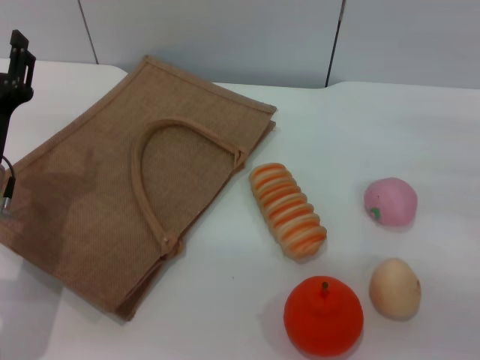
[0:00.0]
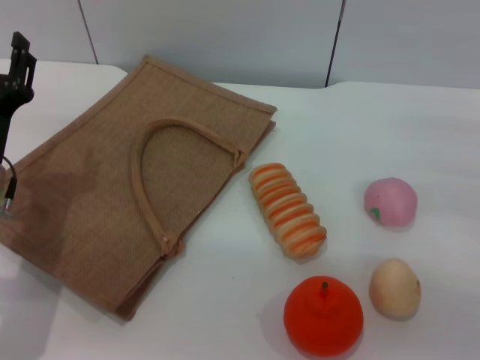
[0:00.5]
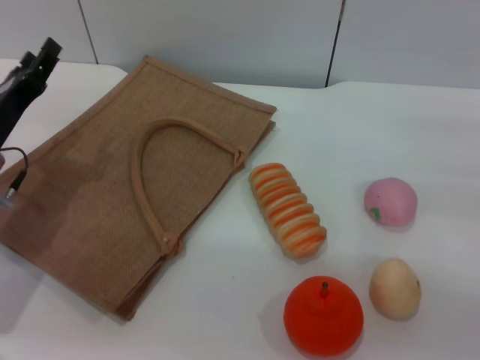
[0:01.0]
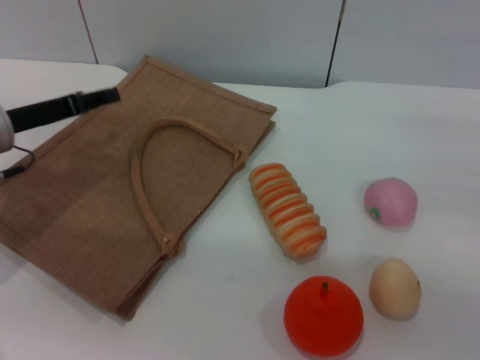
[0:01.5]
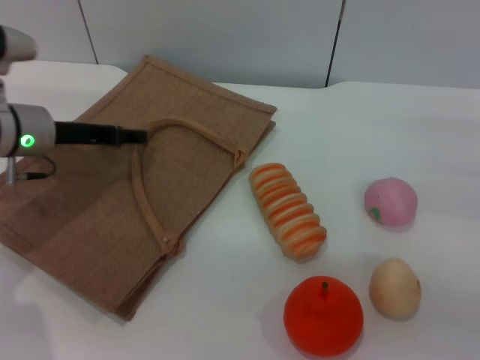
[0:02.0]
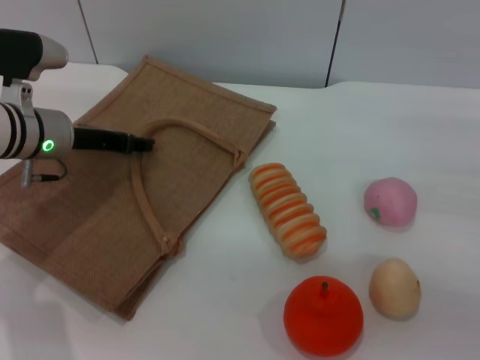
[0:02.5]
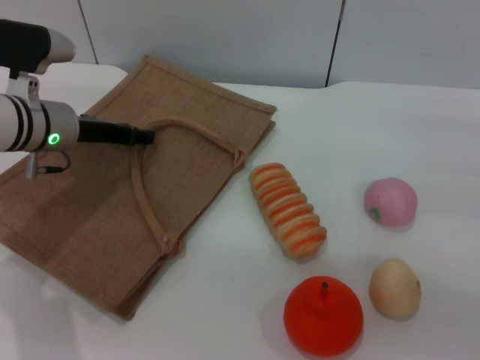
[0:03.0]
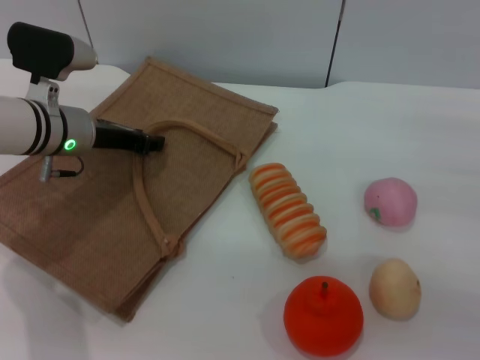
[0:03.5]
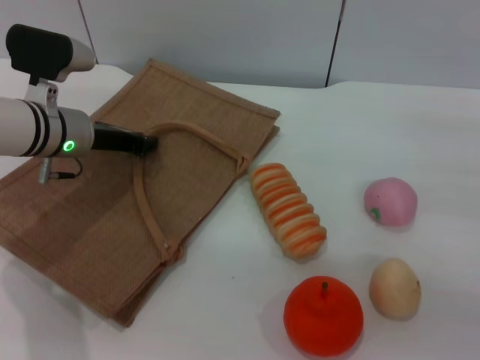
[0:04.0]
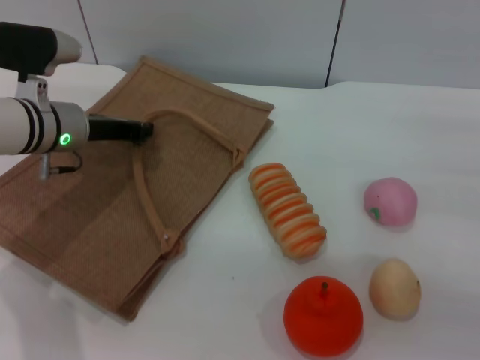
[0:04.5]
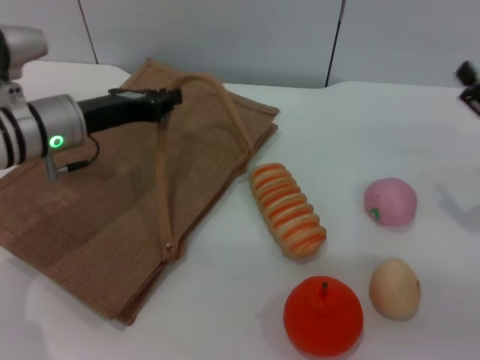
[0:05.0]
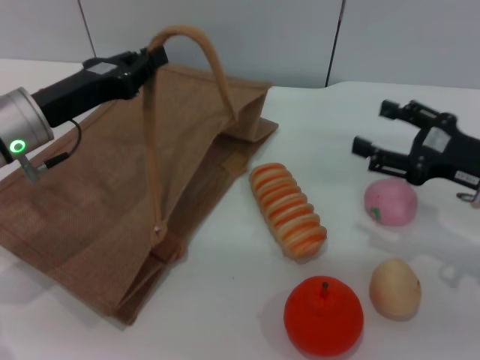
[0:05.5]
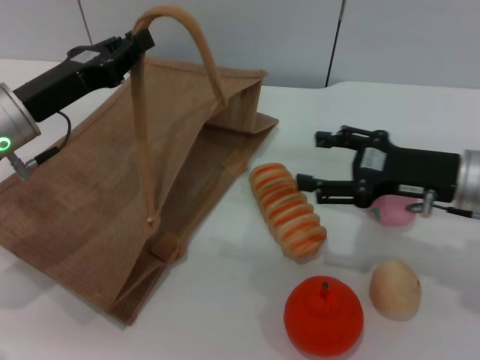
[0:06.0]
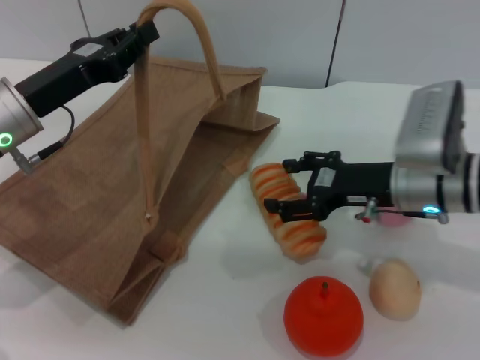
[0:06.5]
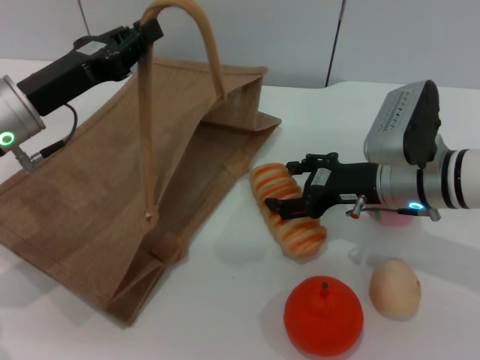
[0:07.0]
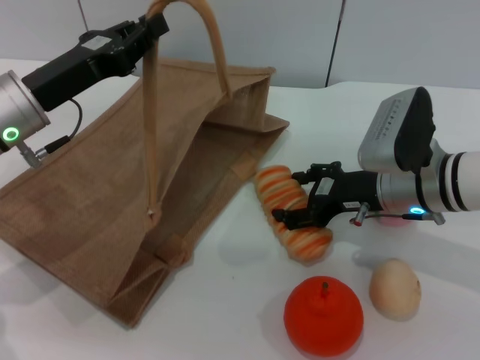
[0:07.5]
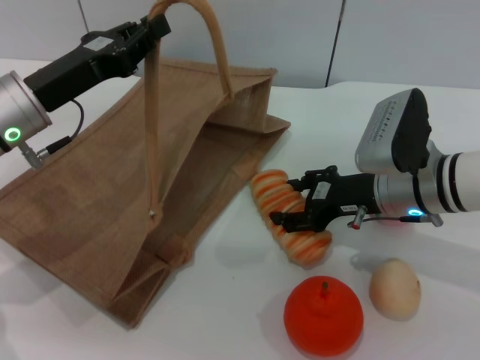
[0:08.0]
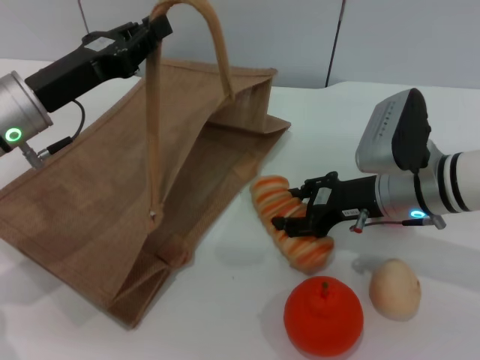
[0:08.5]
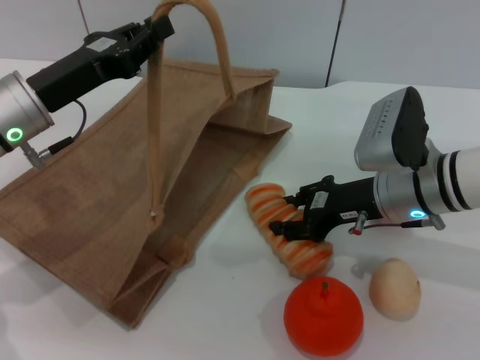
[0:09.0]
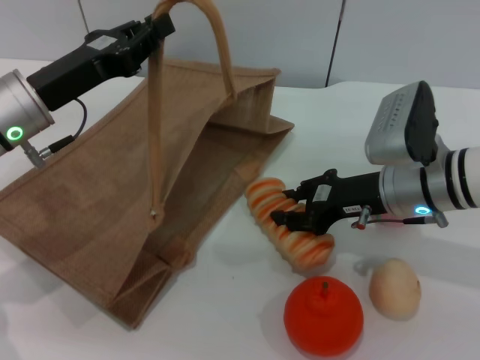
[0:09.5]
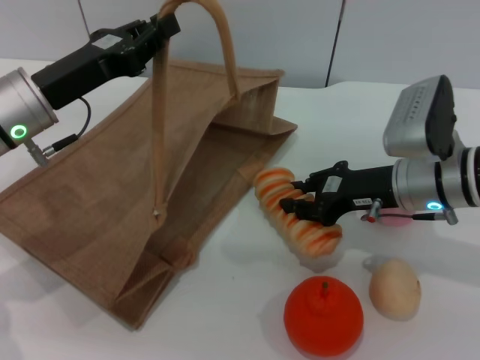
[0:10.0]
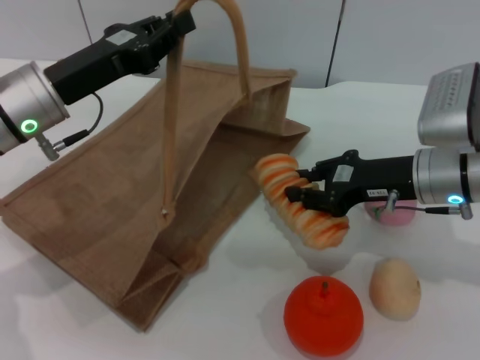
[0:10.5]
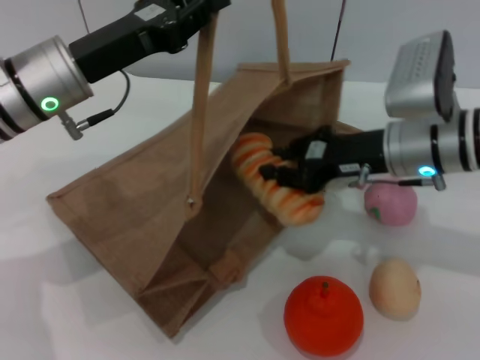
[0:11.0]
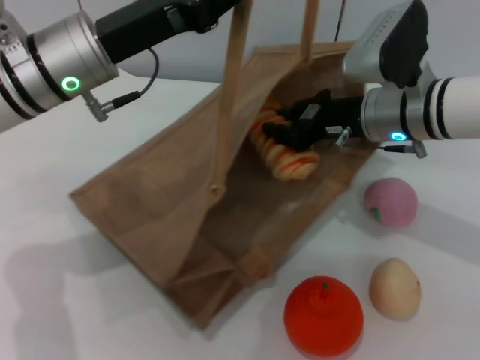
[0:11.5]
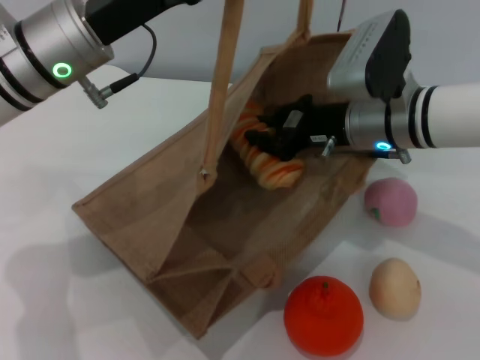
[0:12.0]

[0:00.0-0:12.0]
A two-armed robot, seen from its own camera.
Task of the whole recording: pick up the bread and egg yolk pastry from the table and place it in the brown handbag.
Step, 0:00.0 to 0:04.5: Lift the woven bag with the left gripper to open it.
Step, 0:05.0 to 0:10.0: Pick up the bread with the right gripper.
0:00.0 to 0:02.0: The left gripper travels forward by about 10 cm.
0:02.0 to 0:04.0: The left gripper closes its fingers.
0:04.0 to 0:06.0: The right gripper heads to the left, covering approximately 10 cm. Meanwhile the left gripper shifts approximately 5 cm backward, and closes.
0:06.0 to 0:08.0: The right gripper travels to the left by about 5 cm.
0:08.0 to 0:10.0: The right gripper closes its fingers.
0:10.0 to 0:12.0: The left gripper moves to the right and upward, about 10 cm. The right gripper shifts some 5 cm to the left.

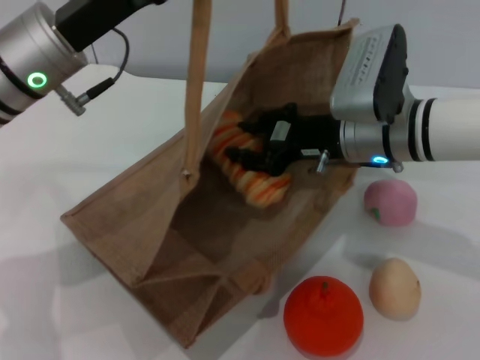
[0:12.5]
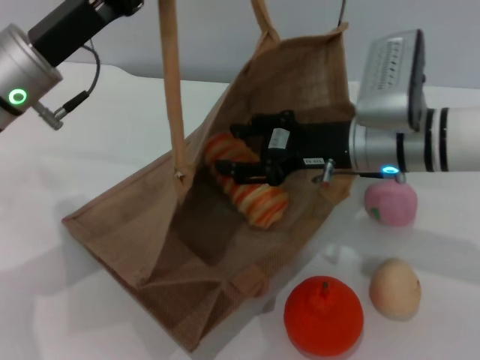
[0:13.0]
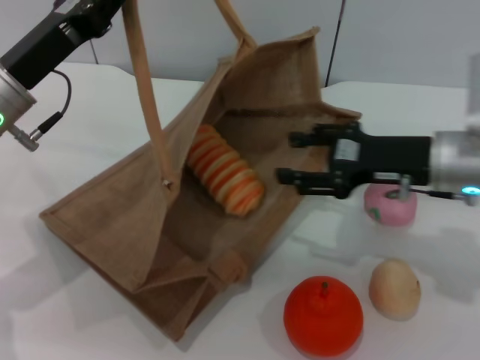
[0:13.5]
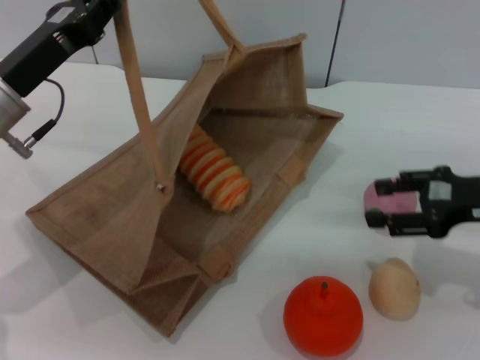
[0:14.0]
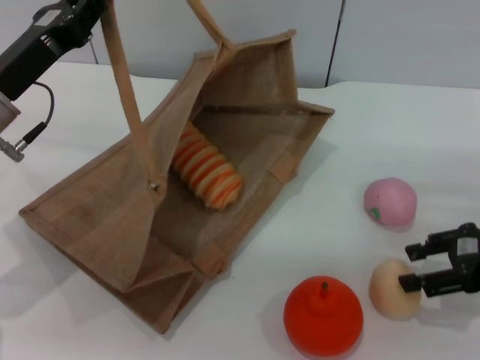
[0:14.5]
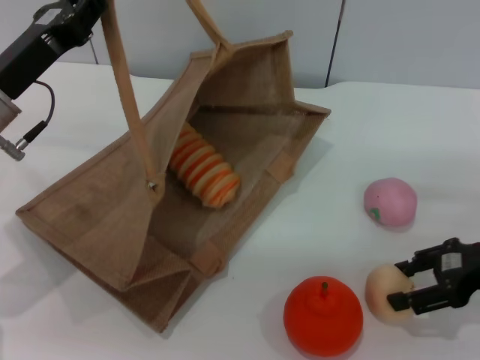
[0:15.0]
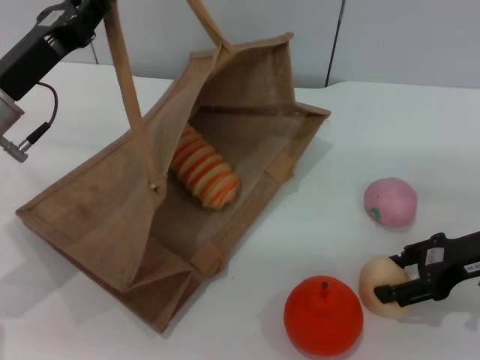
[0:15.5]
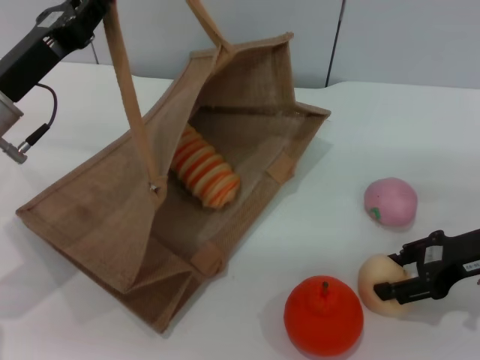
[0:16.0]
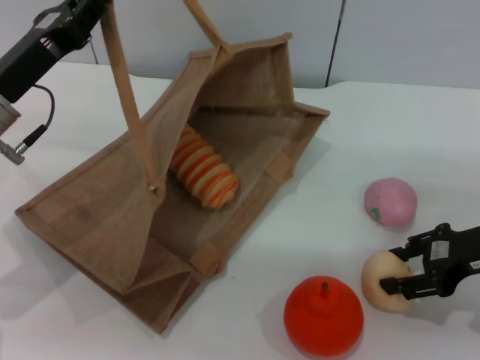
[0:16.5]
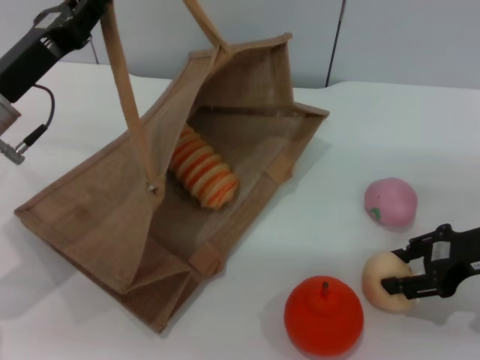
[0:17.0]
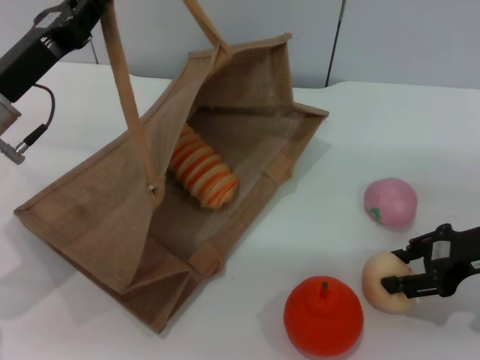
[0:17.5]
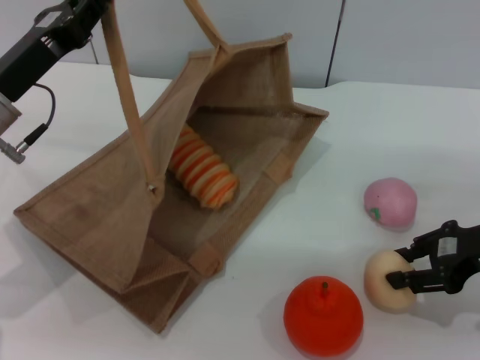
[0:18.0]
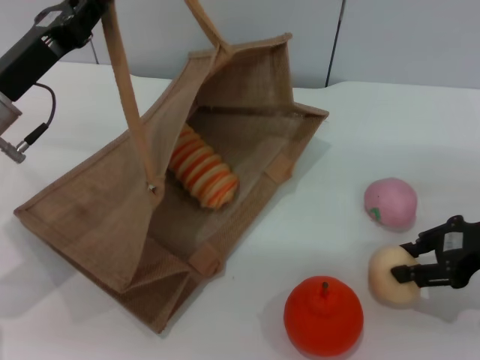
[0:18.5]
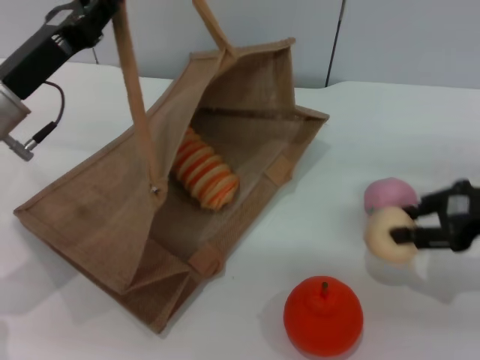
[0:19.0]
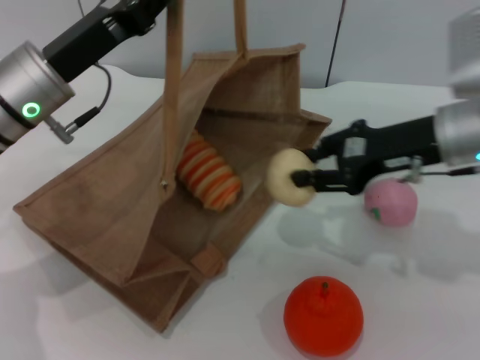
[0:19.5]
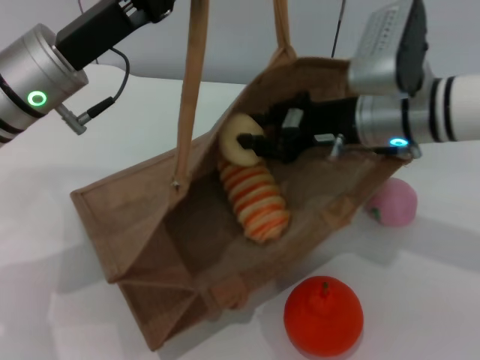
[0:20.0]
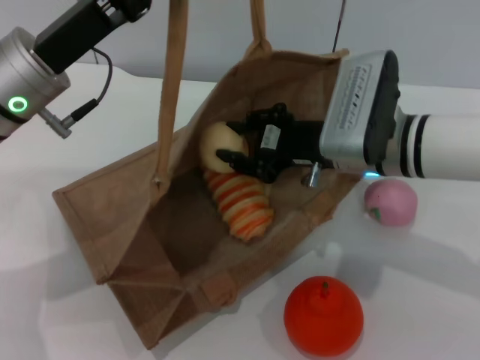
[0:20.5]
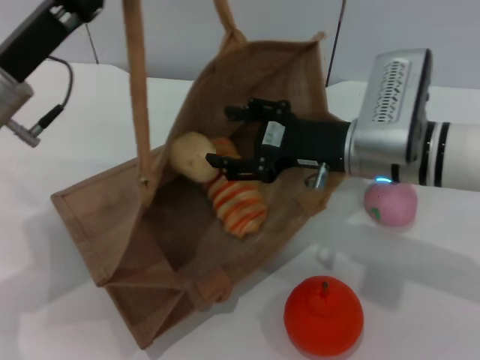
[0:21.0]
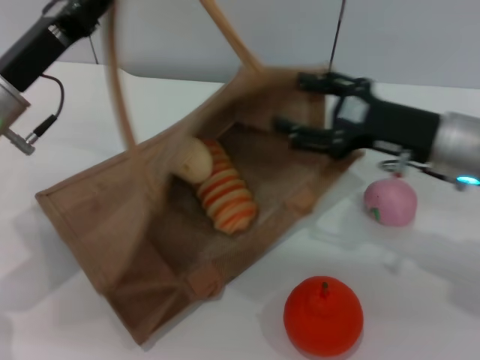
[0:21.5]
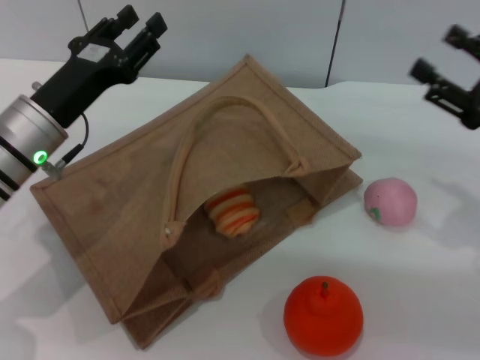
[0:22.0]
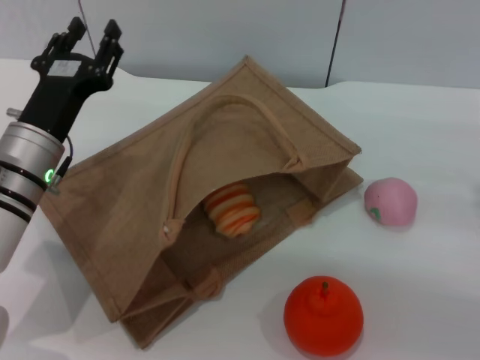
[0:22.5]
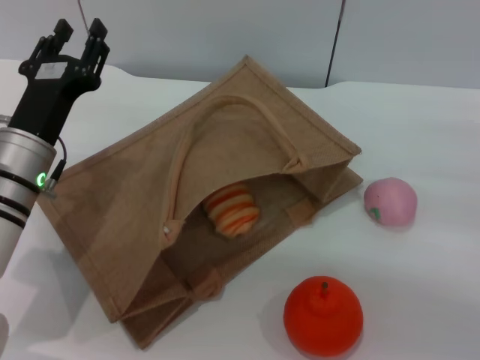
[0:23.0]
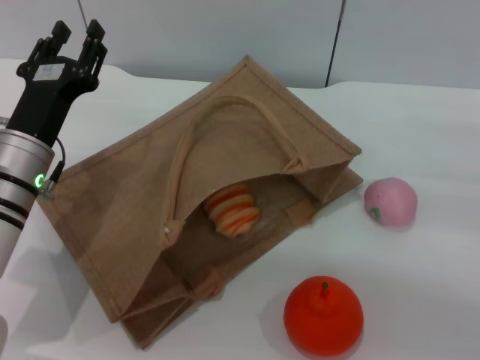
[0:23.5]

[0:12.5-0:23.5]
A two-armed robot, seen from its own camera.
Task of the whole recording: pick up the bread and egg yolk pastry from the table and place it in the brown handbag.
Step, 0:14.0 to 0:19.0: Pick up the egg yolk pastry with the right gripper.
Step, 0:19.5 to 0:21.5: Place the egg yolk pastry into the woven bag with the right gripper.
0:12.5 to 0:14.5: The right gripper travels to the right by approximately 20 cm, and opens up; the left gripper moves to the left, about 5 cm.
0:14.5 to 0:18.0: The grippers move only a little.
0:18.0 to 0:20.0: The right gripper heads to the left and forward, covering some 15 cm. The left gripper heads to the right, covering some 5 cm.
0:20.0 to 0:21.5: The left gripper moves to the left, about 5 cm. Meanwhile the right gripper moves to the right, about 5 cm, and opens its fingers.
0:21.5 to 0:23.5: The left gripper travels downward by approximately 5 cm, and opens its fingers. Meanwhile the right gripper heads to the right and backward, covering some 15 cm.
